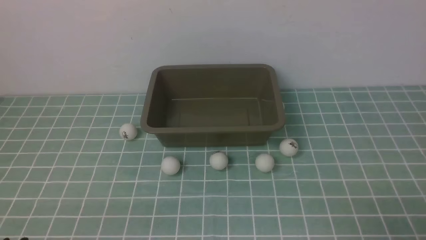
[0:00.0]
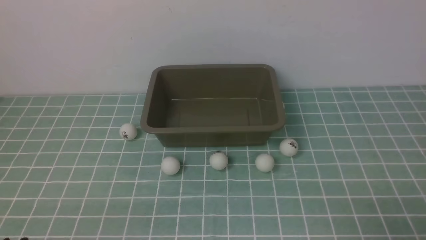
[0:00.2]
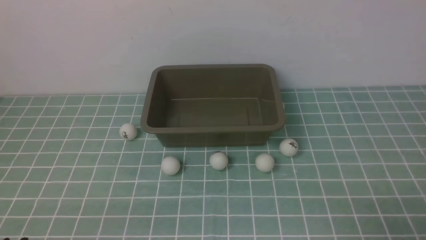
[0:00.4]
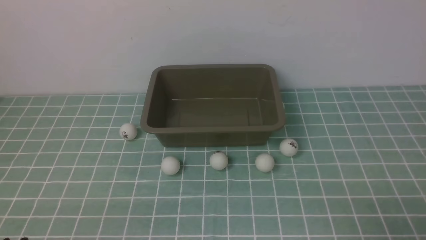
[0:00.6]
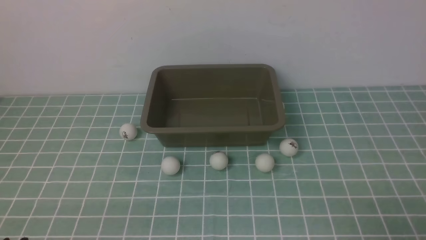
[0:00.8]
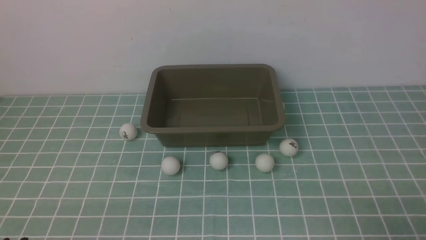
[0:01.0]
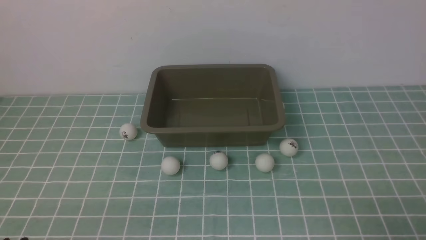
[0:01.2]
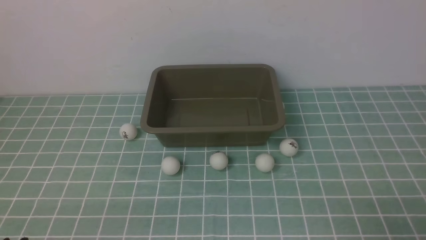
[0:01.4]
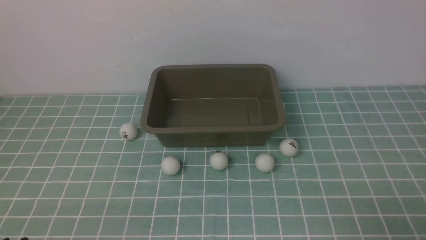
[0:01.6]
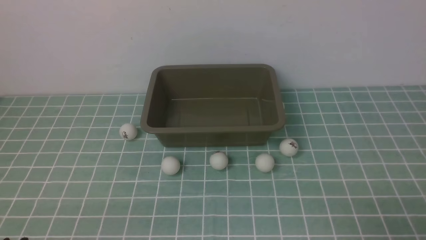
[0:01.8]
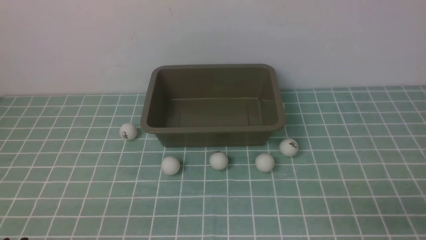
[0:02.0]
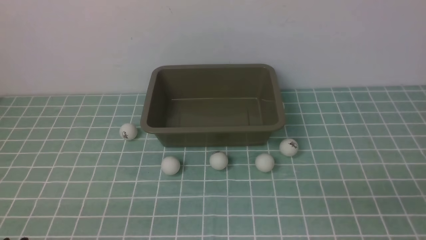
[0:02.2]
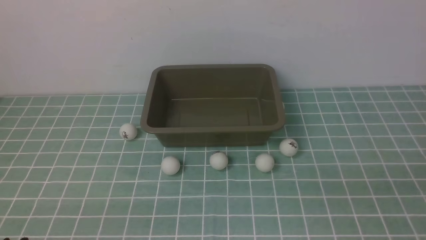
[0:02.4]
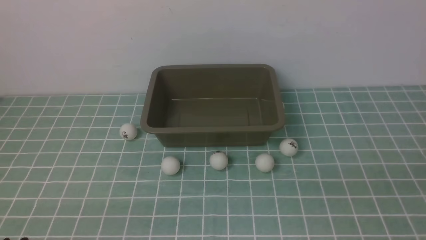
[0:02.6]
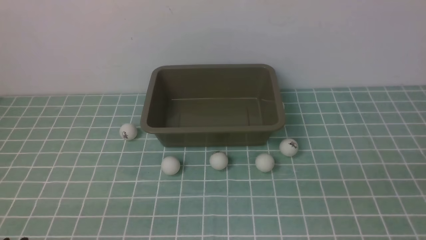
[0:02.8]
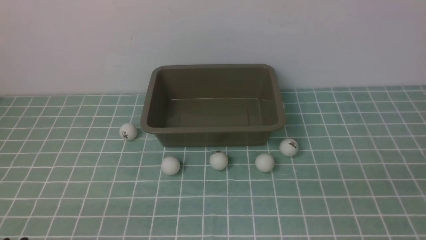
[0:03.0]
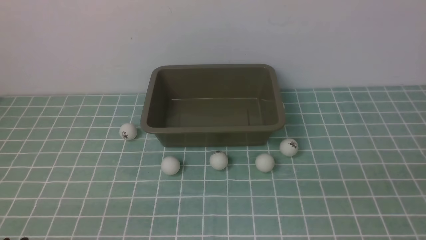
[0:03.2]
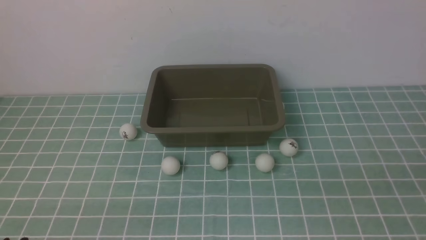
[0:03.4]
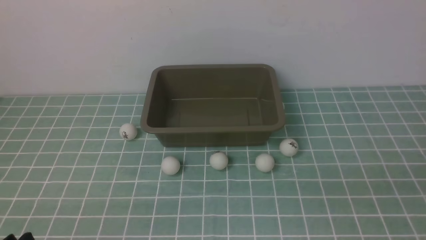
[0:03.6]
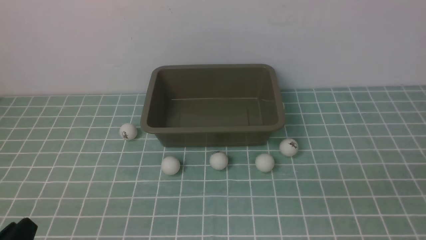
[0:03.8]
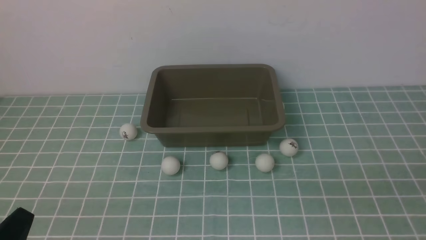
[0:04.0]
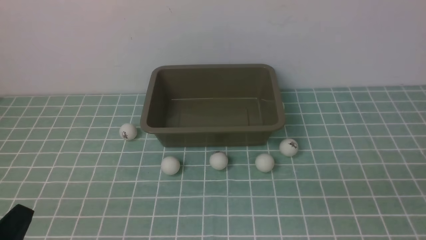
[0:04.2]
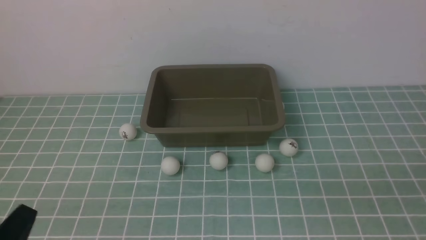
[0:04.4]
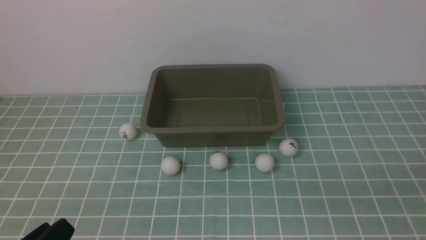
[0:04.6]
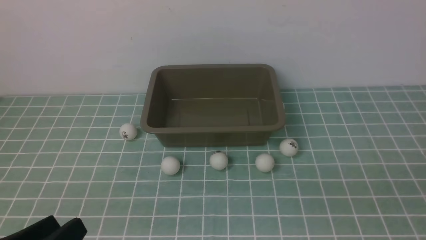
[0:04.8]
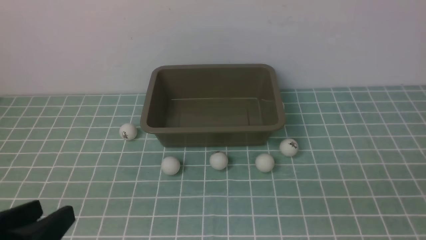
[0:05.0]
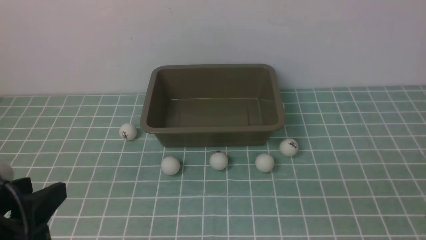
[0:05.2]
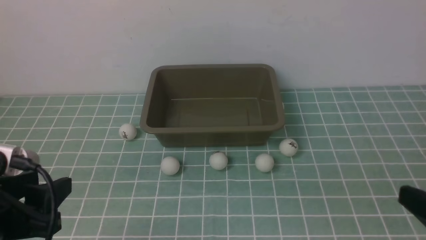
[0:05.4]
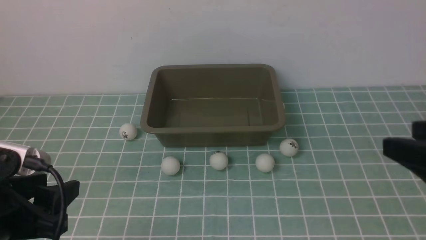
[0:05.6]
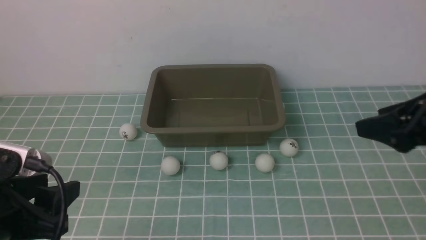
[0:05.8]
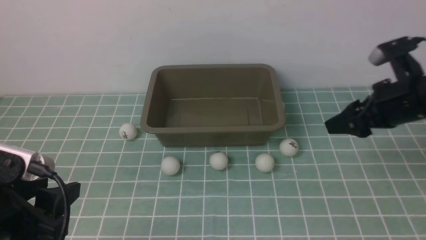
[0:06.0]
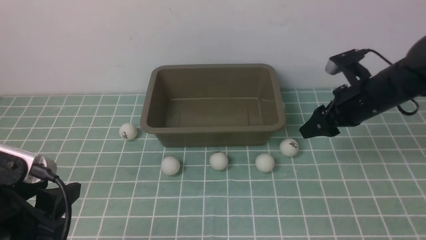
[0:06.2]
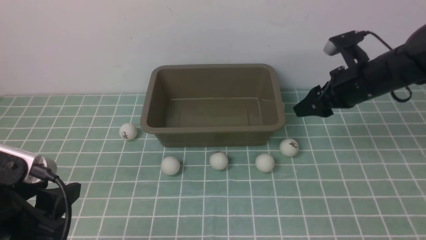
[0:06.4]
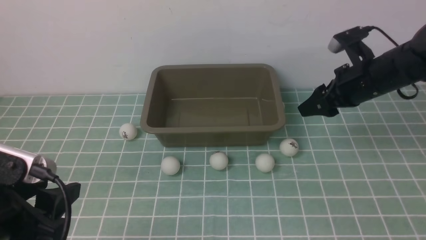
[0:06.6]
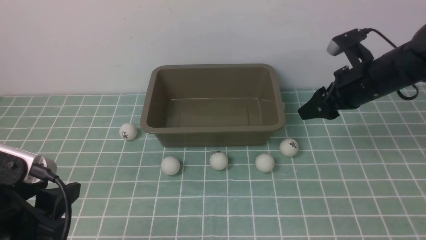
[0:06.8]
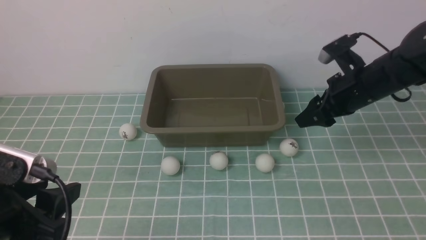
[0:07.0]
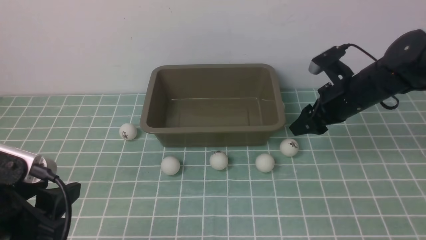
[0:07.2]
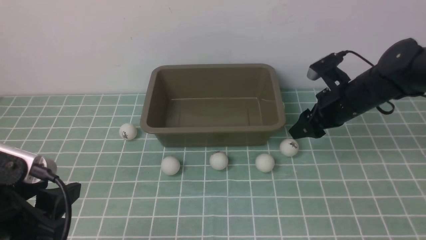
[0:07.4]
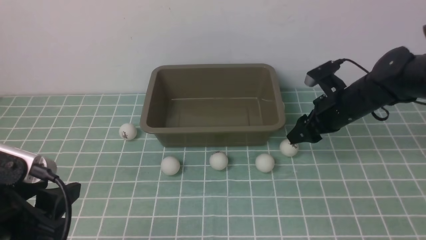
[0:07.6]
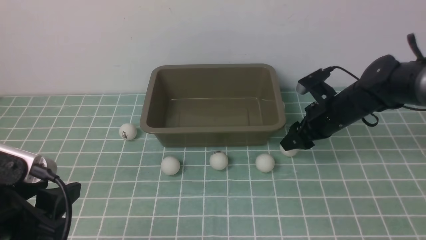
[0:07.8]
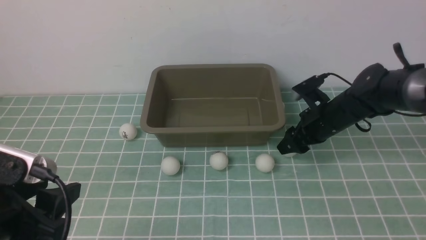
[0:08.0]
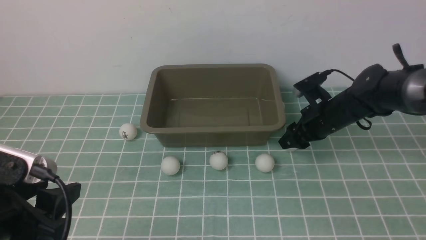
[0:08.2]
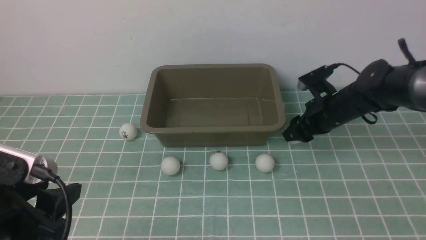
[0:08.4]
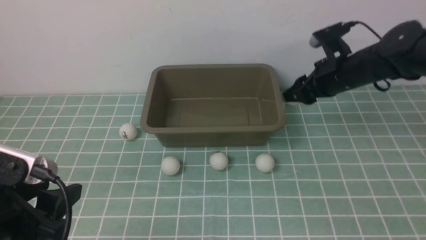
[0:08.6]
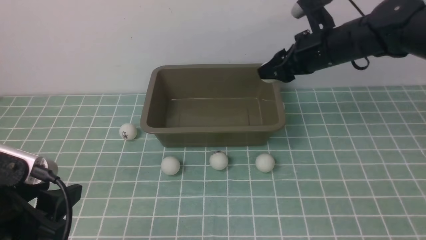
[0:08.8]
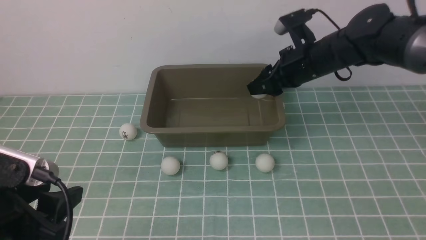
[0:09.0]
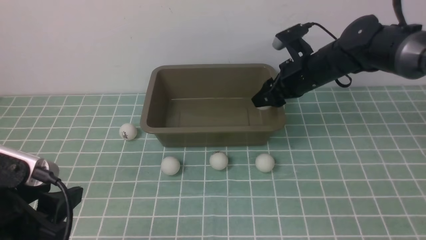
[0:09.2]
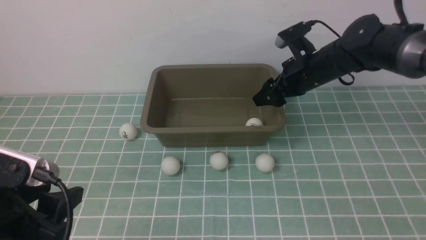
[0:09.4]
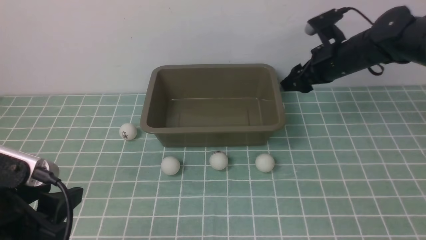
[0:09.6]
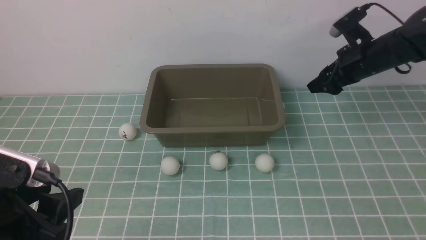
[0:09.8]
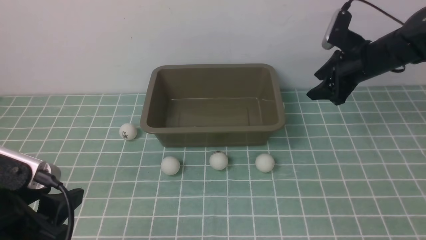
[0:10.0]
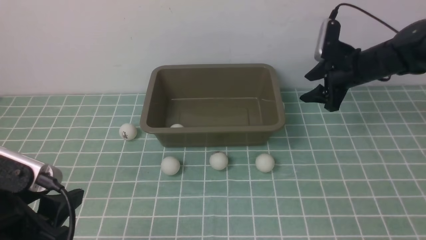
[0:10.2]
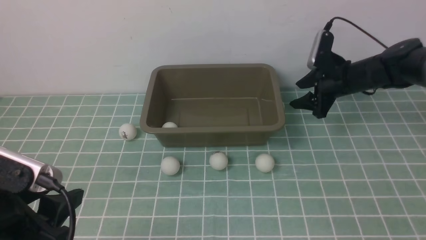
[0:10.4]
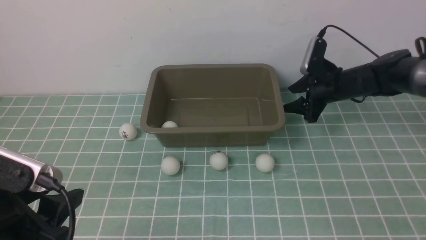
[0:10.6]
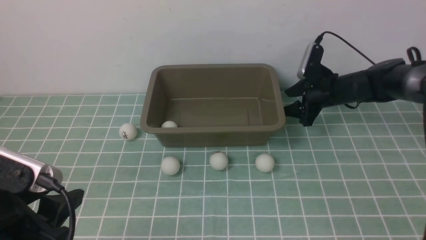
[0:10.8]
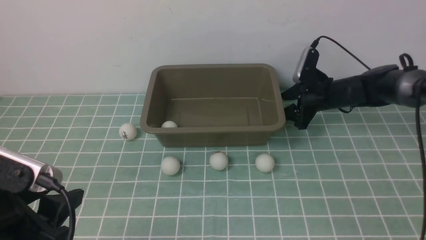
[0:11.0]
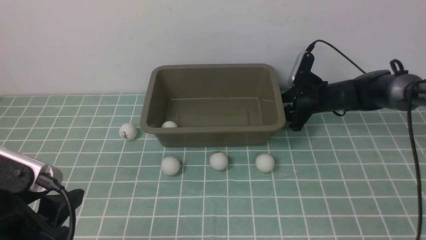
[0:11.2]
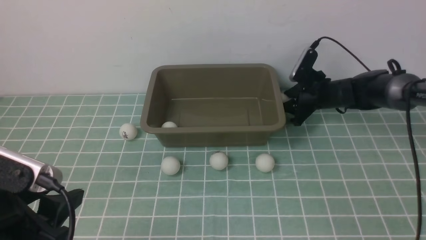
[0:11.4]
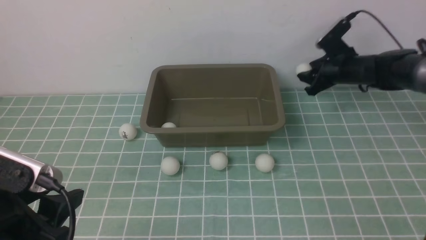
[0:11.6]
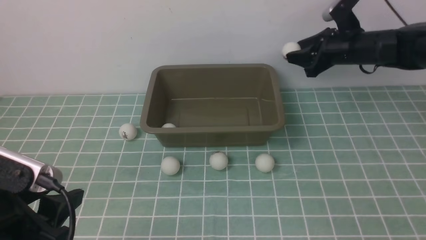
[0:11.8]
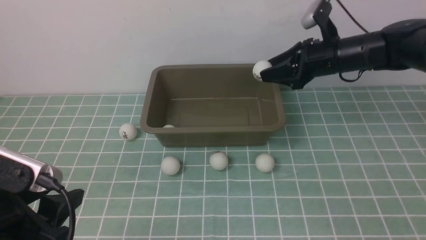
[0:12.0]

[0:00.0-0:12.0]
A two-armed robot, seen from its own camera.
Step, 0:00.0 to 0:08.6: use the right arm to clamp the table tennis ball closest to it.
Step, 0:08.8 to 0:09.4: use the right arm to put the table tennis ball into the box.
Step, 0:09.6 to 0:11.6: use the right arm to clamp the table tennis ball closest to it.
0:00.0 to 0:01.6: Both grippers stay about where they are.
0:04.4 to 0:06.0: The left gripper moves upward and forward, about 10 cm, and opens; the right gripper is displaced forward by about 35 cm.
0:06.0 to 0:07.6: The right gripper heads downward, covering some 5 cm.
0:07.6 to 0:09.0: The right gripper moves upward and to the left, approximately 10 cm.
0:09.0 to 0:10.4: The right gripper heads to the right and downward, covering about 10 cm, and opens.
0:10.4 to 0:12.0: The right gripper heads upward, covering about 5 cm, and closes.

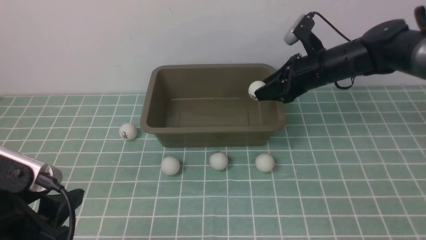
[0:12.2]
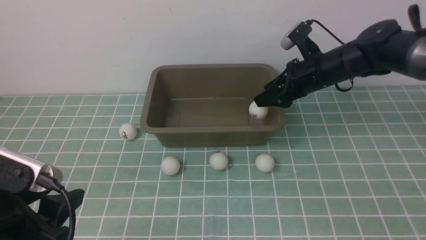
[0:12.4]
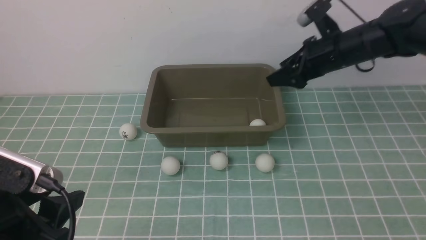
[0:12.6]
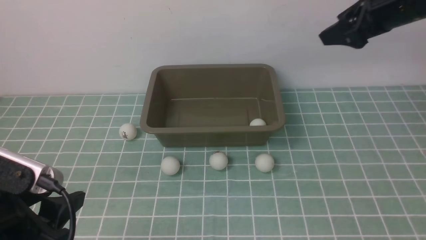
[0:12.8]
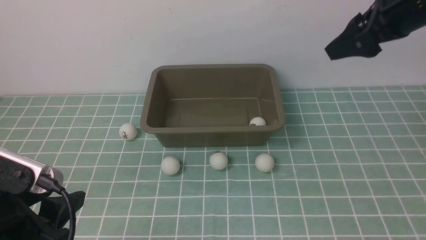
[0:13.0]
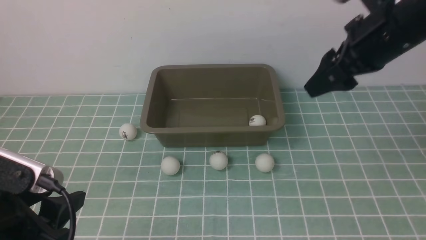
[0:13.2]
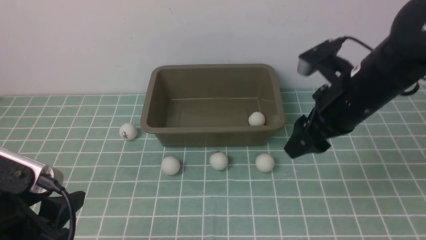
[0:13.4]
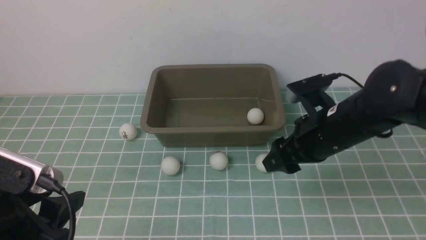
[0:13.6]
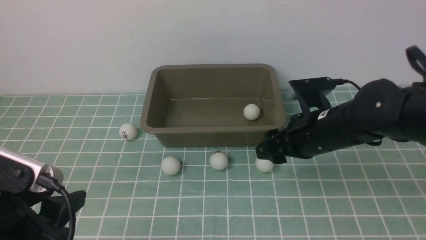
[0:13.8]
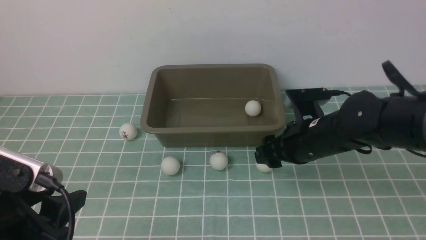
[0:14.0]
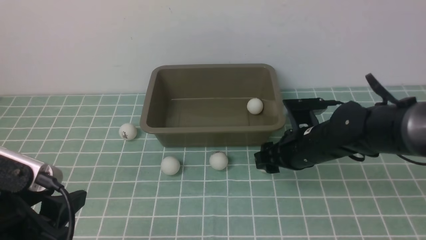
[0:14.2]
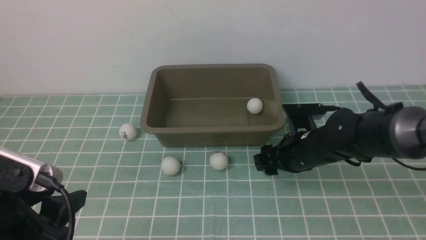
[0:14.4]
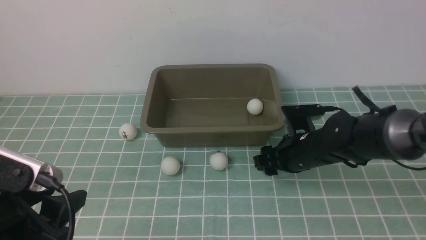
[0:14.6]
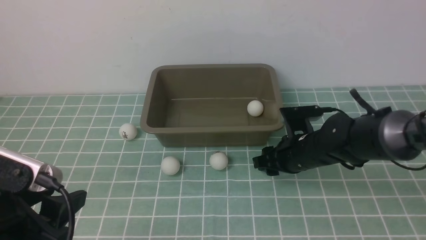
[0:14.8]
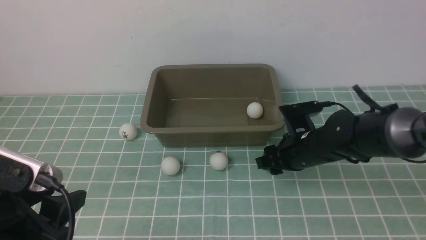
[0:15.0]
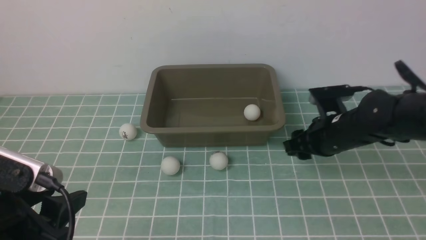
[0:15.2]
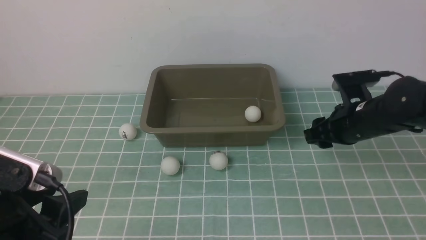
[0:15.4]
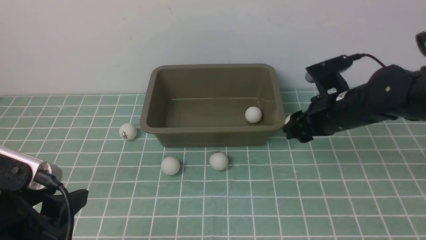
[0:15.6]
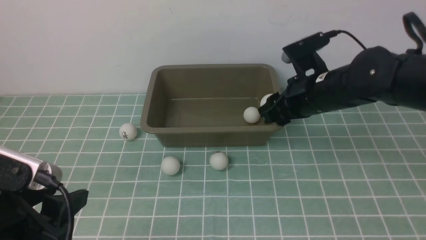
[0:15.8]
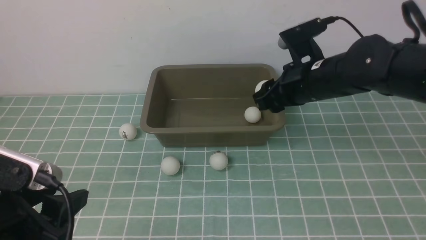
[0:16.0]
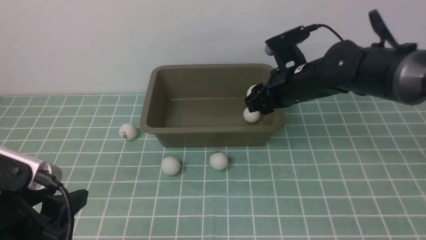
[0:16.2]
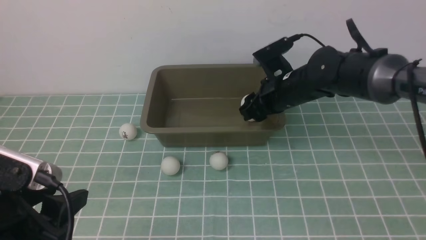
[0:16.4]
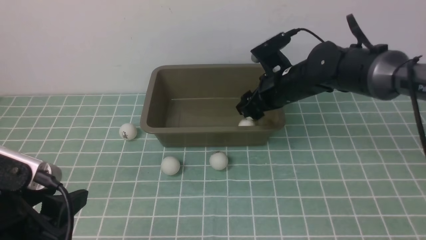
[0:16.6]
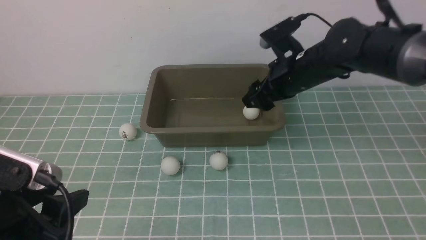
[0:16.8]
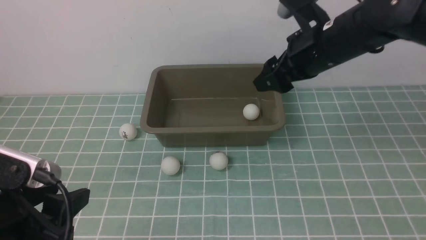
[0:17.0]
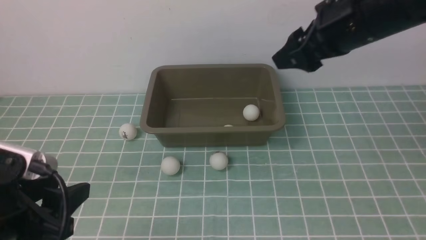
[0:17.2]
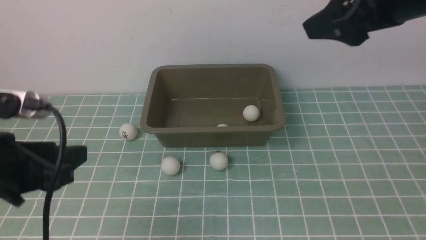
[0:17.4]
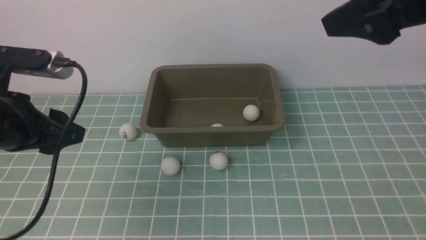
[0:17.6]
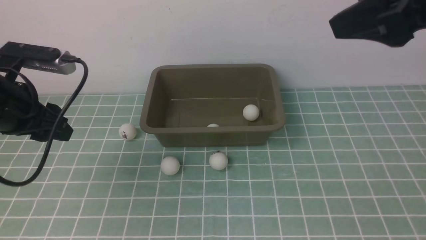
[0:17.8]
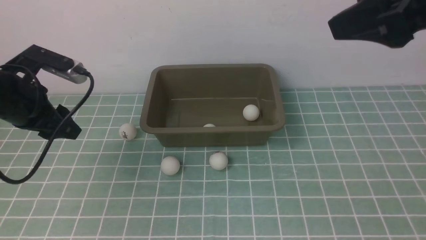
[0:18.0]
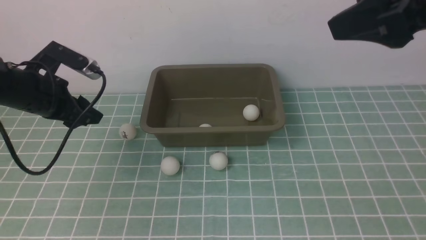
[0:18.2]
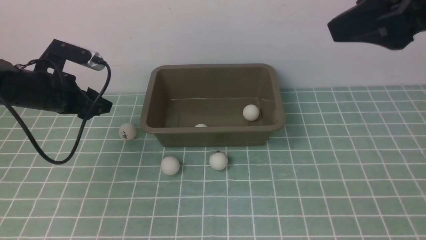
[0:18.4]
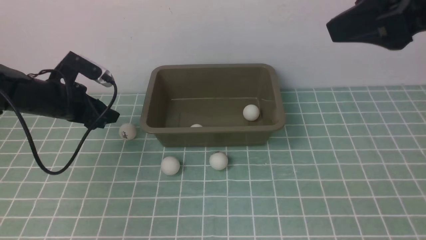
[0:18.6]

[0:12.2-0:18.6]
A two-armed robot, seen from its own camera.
Step, 0:12.6 to 0:15.2: use the right arm to clamp the table tennis ball closest to it.
Step, 0:15.4 to 0:16.6: use the right arm to put the table tennis ball into the box.
0:12.2 to 0:13.8: The right gripper heads backward, covering roughly 15 cm, goes upward and returns, about 15 cm each way, and opens.
0:13.8 to 0:15.4: The right gripper travels to the right by approximately 5 cm, goes downward and returns, about 10 cm each way, and closes its fingers.
0:15.4 to 0:17.0: The right gripper moves upward and to the left, some 15 cm, and opens its fingers.
0:17.0 to 0:18.6: The left gripper heads forward, covering approximately 25 cm. The right gripper heads backward and upward, covering roughly 20 cm.
